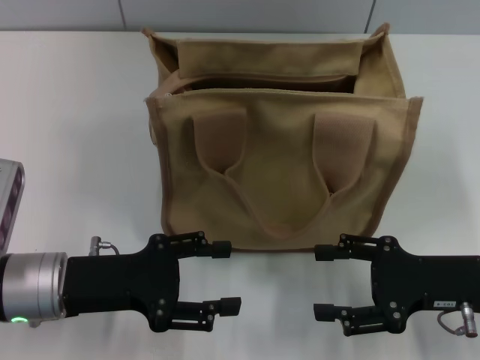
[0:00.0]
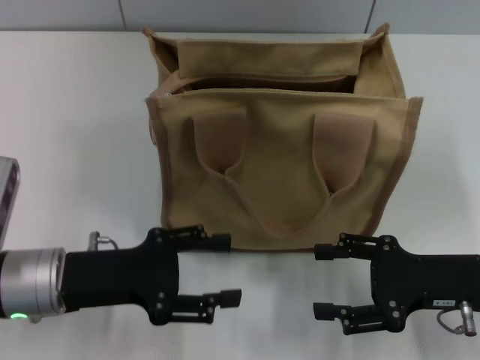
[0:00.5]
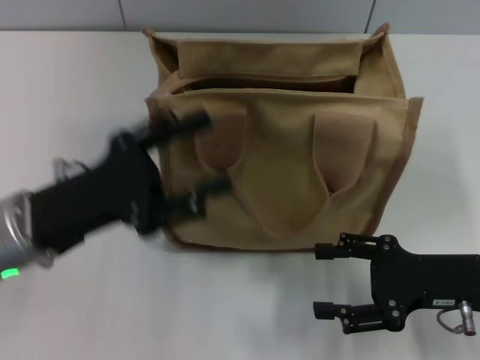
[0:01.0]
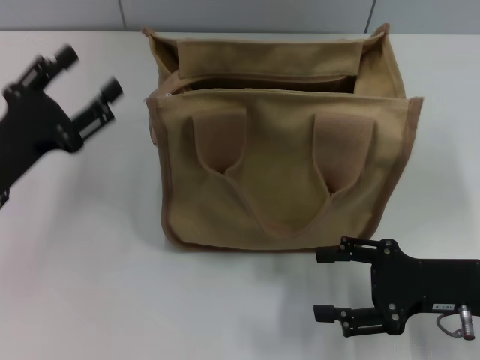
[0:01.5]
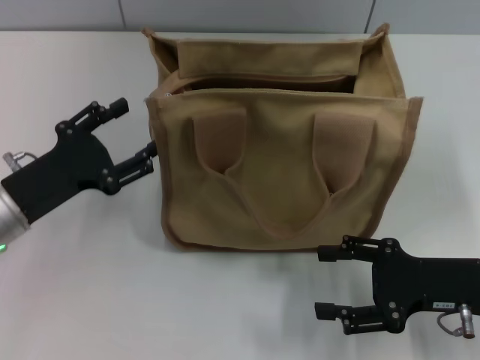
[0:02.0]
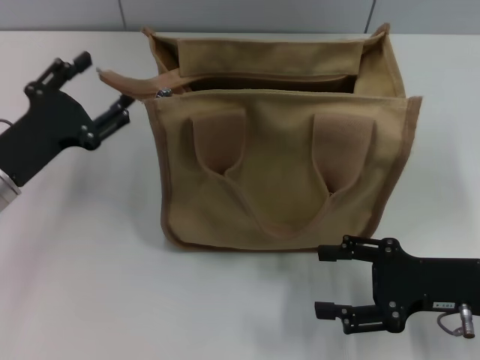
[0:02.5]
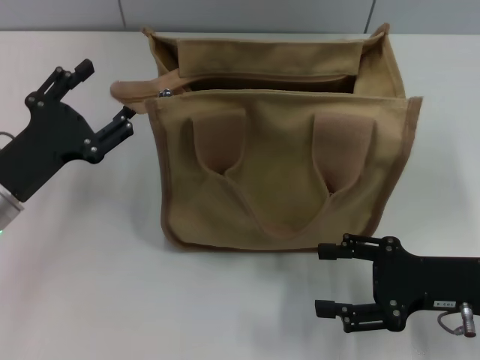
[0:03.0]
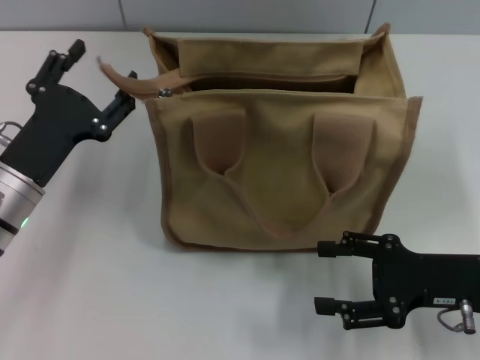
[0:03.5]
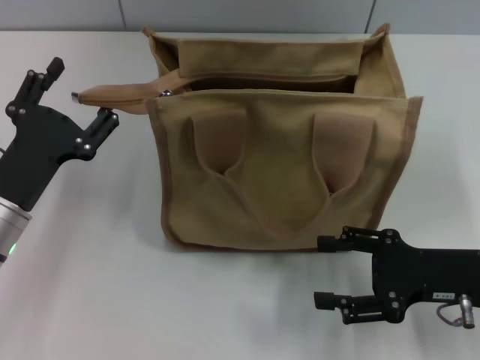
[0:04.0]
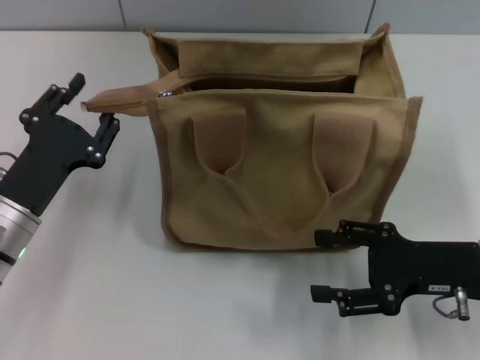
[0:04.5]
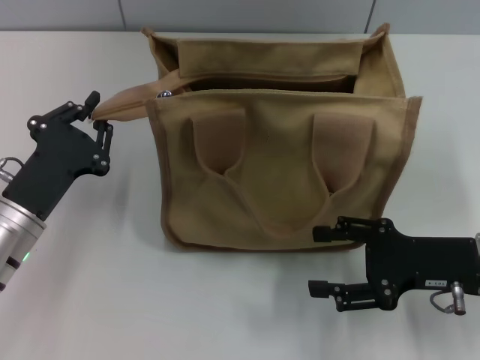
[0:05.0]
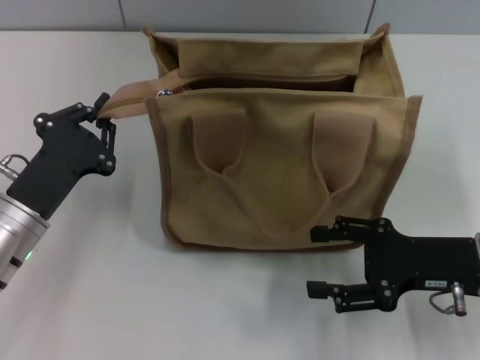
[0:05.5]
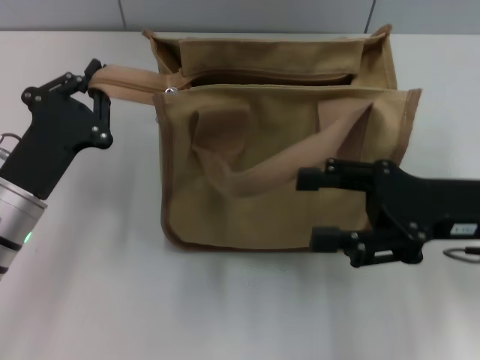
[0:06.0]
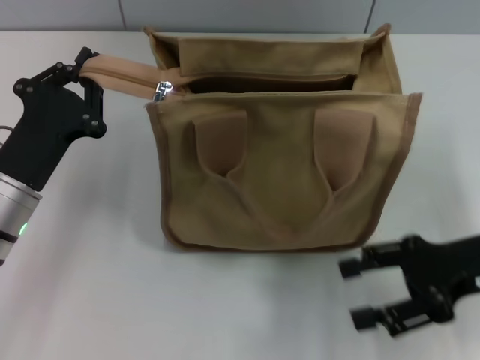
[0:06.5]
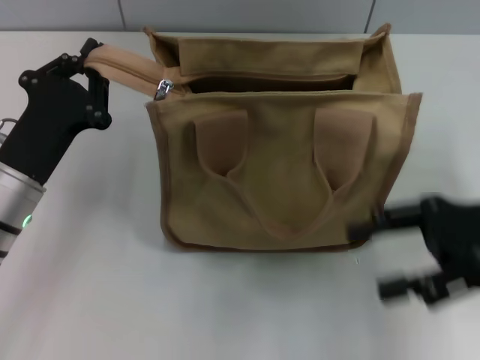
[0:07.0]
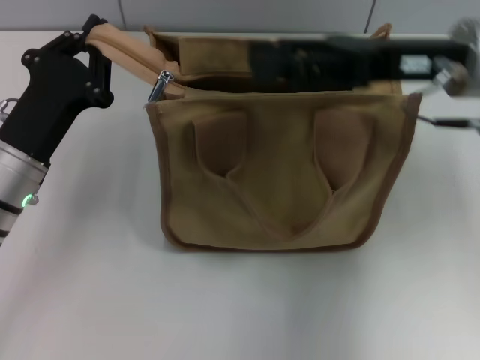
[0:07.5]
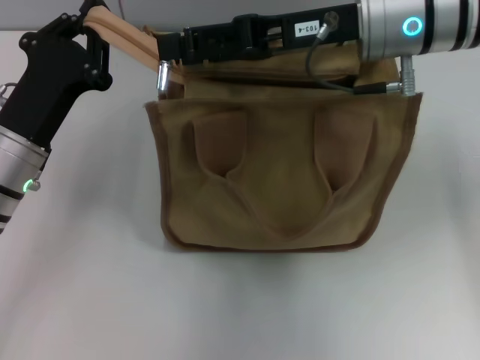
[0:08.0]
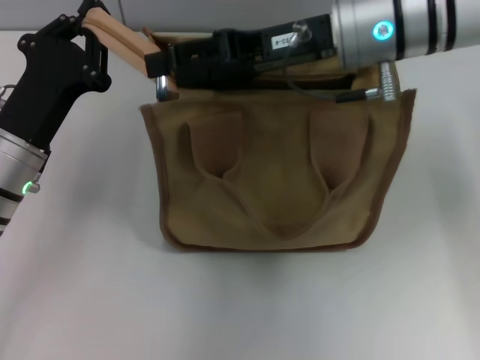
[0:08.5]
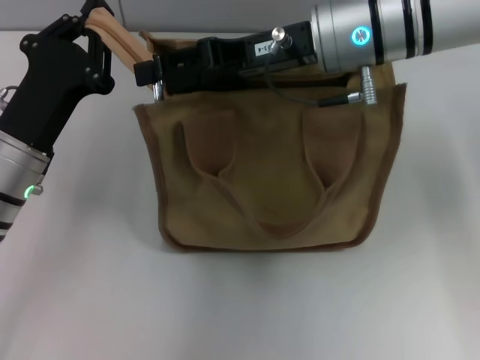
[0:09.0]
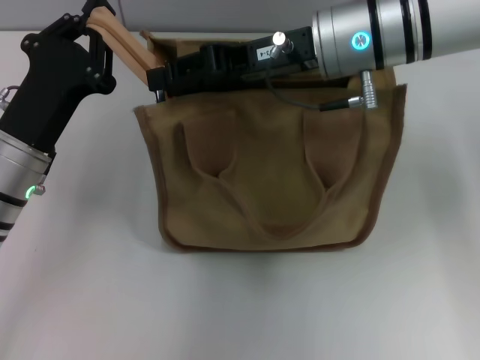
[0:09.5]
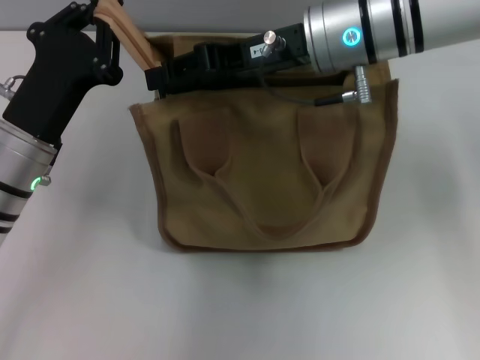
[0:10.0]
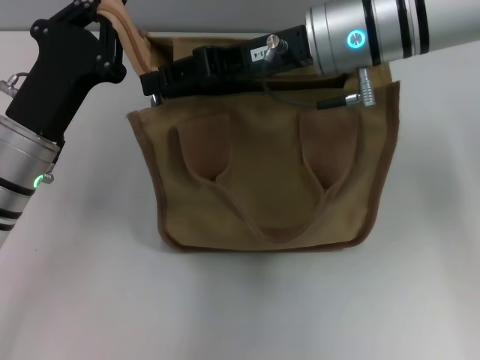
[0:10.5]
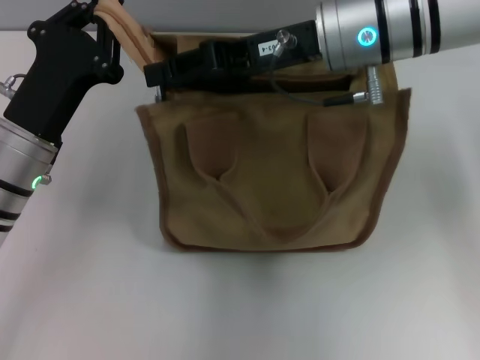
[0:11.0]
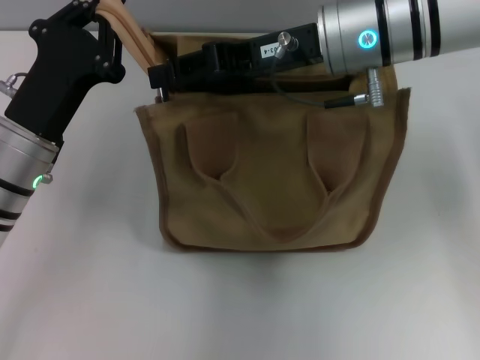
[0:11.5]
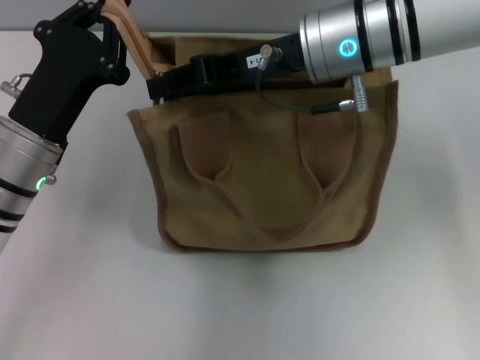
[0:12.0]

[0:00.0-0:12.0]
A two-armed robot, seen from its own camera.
0:00.0 to 0:02.0: The left gripper changes place by about 5 cm.
0:04.0 to 0:06.0: The left gripper closes its fingers. The right gripper travels upward by approximately 5 cm.
0:06.0 to 0:08.0: The right gripper moves forward, to the left and upward, some 20 cm.
0:08.0 to 0:10.0: The right gripper closes up.
0:10.0 to 0:12.0: The two grippers keep their place.

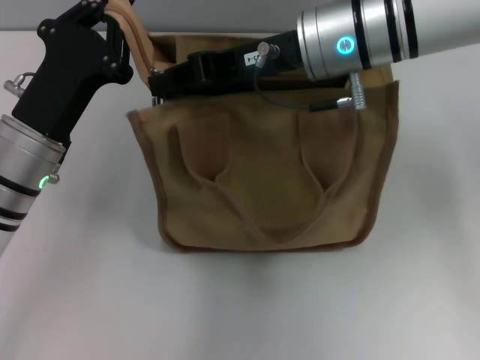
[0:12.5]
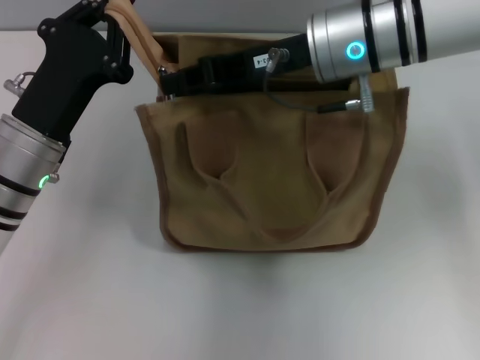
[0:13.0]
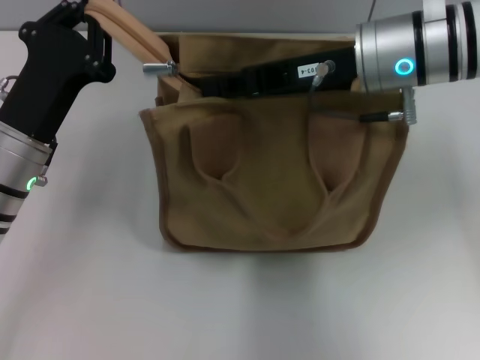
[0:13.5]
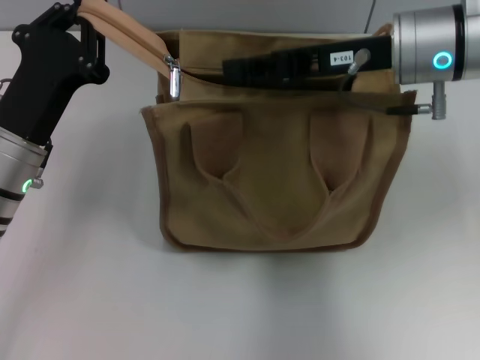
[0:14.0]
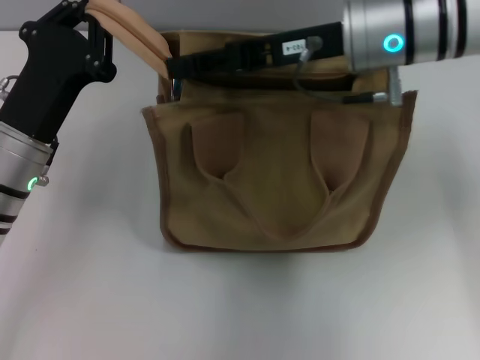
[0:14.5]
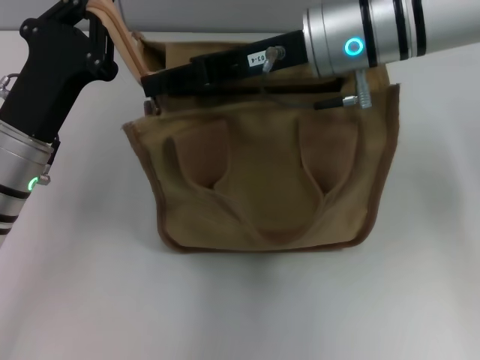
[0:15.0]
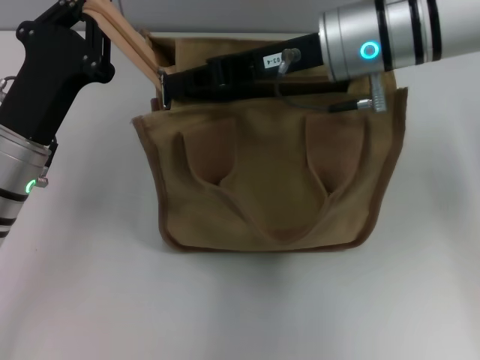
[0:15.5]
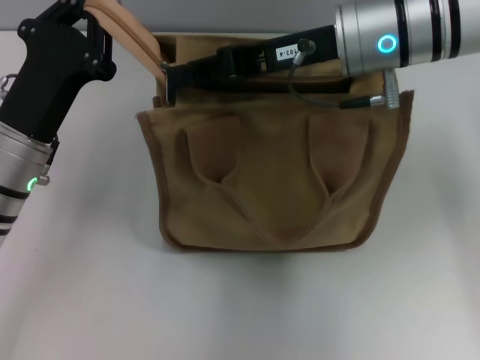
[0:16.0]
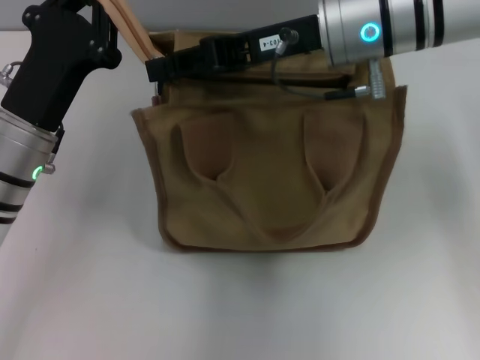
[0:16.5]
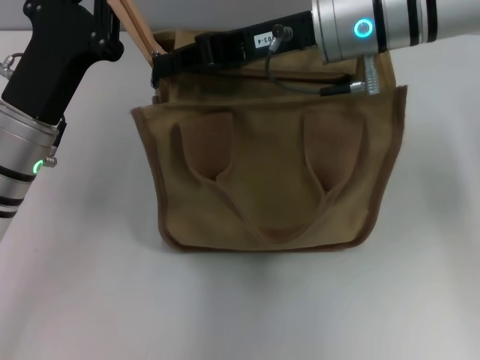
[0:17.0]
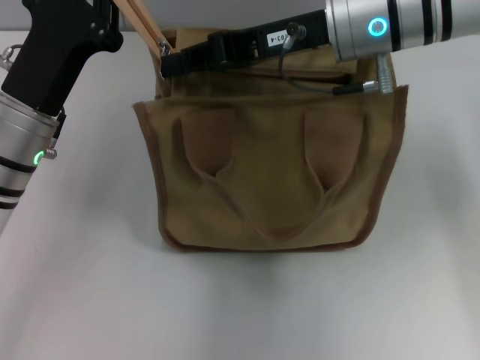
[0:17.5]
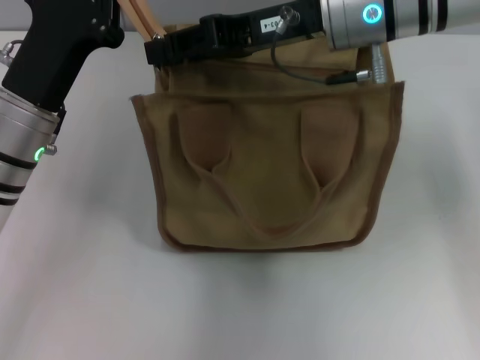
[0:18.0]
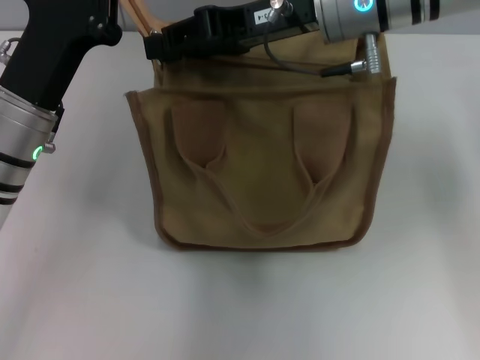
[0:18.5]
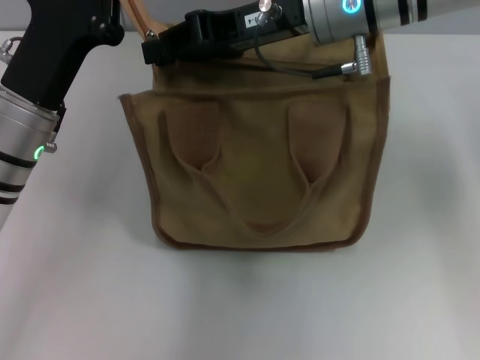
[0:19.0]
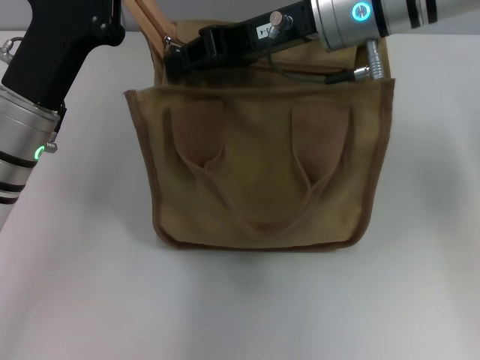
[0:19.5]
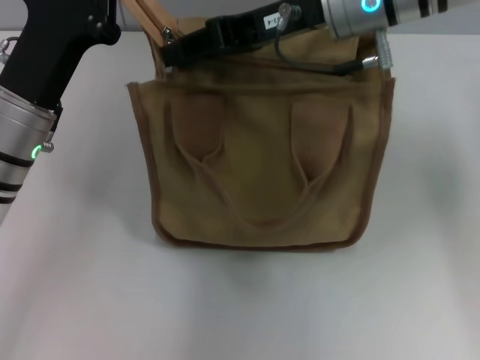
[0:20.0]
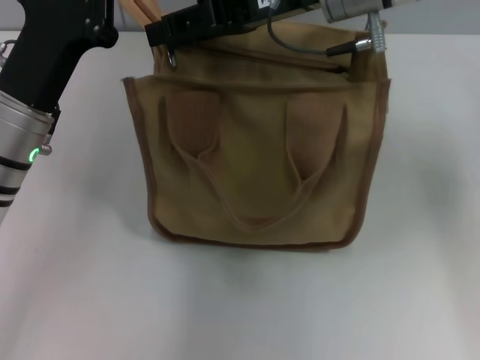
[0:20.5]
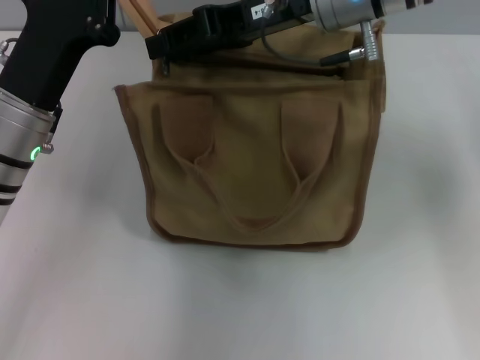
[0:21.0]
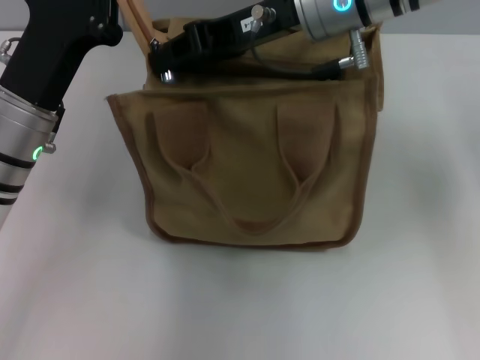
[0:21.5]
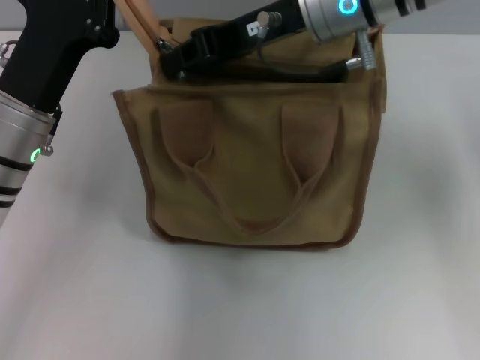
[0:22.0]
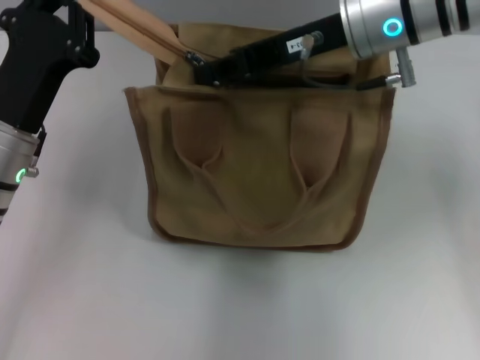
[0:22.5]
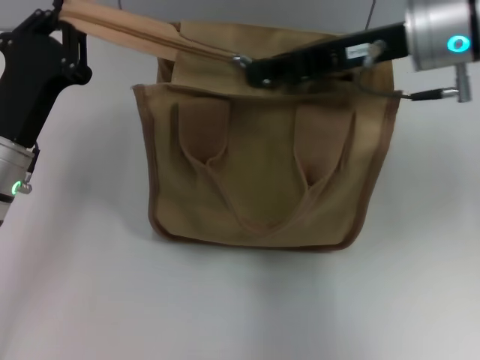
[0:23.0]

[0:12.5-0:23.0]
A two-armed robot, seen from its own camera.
0:14.5 to 0:19.0: The grippers stay close to where they were, moving slightly.
0:19.0 to 0:21.0: The right gripper closes and opens again.
0:21.0 to 0:23.0: The right gripper shifts some 10 cm to the right, and closes its fingers.

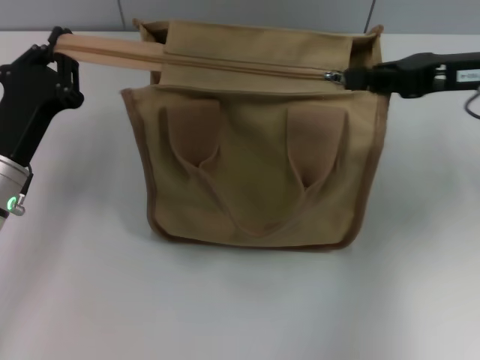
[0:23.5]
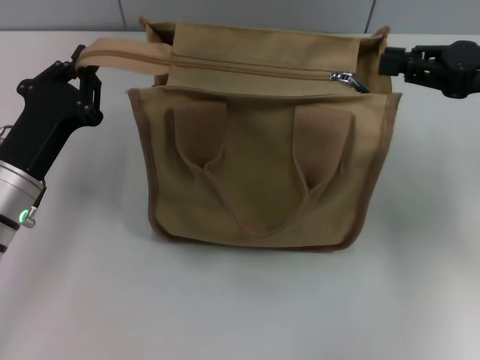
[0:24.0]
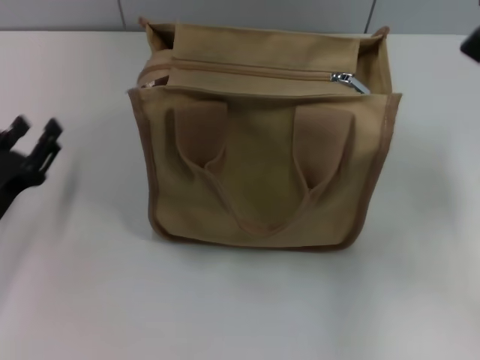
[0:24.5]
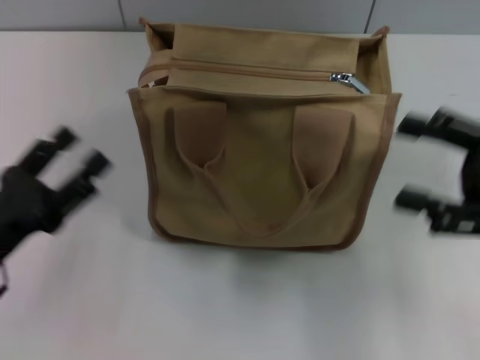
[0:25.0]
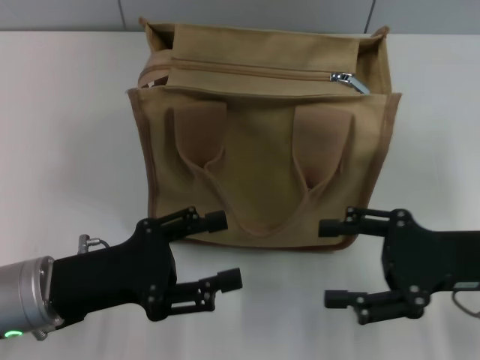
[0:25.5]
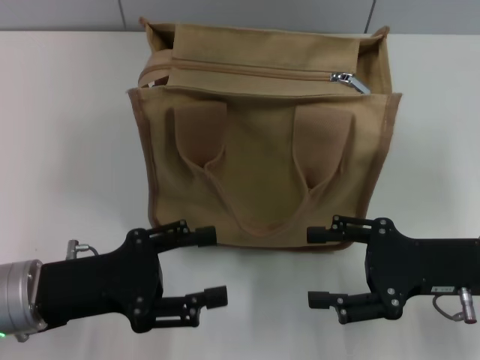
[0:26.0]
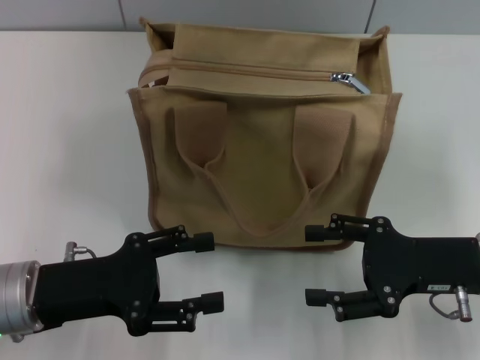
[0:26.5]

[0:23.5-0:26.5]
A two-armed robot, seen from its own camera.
0:23.5 to 0:25.0: The right gripper moves backward and downward, about 10 cm, and opens up; the left gripper shifts approximately 10 cm backward, and opens.
0:25.0 to 0:26.5: The right gripper goes roughly 10 cm downward and to the left.
